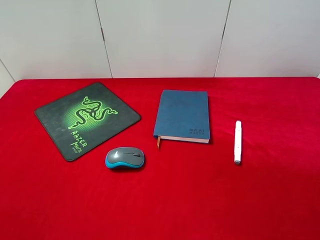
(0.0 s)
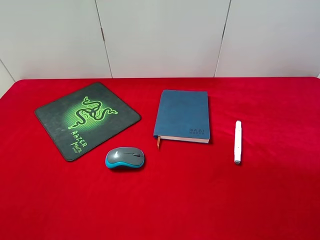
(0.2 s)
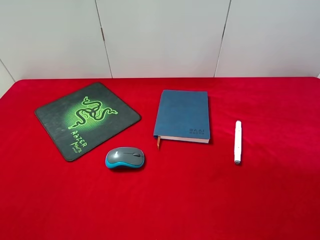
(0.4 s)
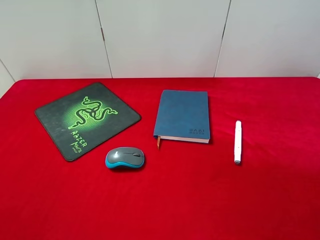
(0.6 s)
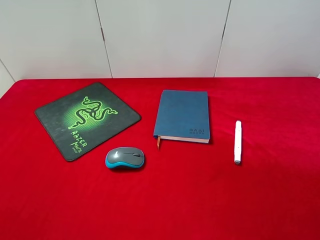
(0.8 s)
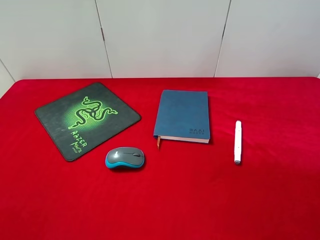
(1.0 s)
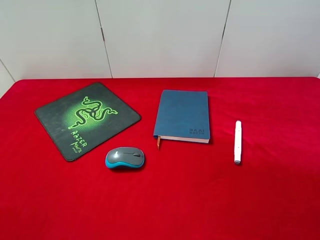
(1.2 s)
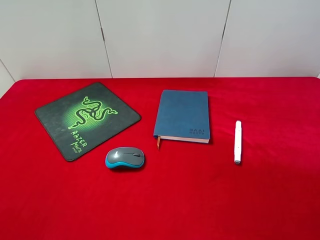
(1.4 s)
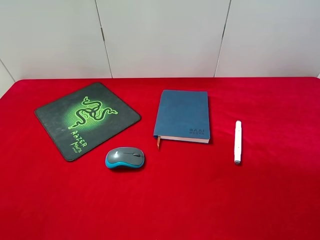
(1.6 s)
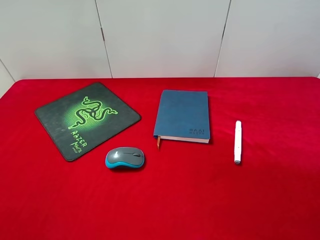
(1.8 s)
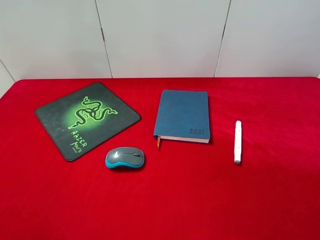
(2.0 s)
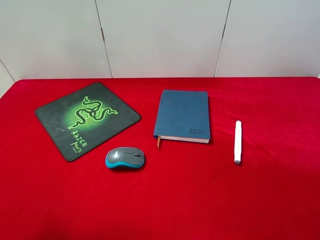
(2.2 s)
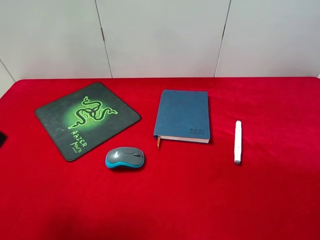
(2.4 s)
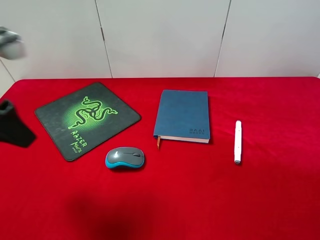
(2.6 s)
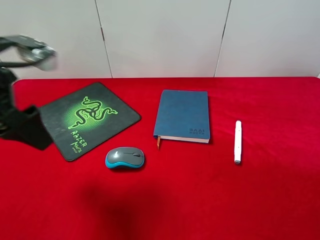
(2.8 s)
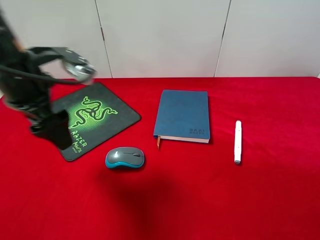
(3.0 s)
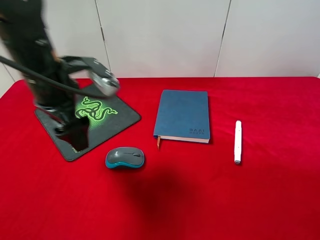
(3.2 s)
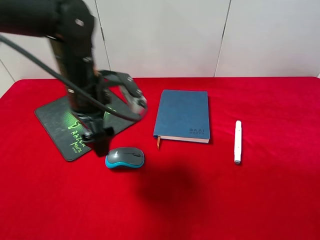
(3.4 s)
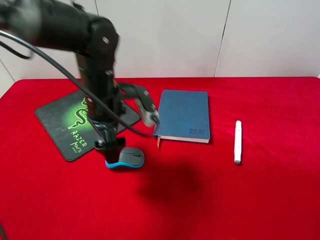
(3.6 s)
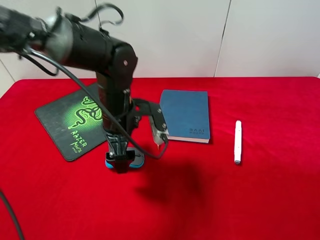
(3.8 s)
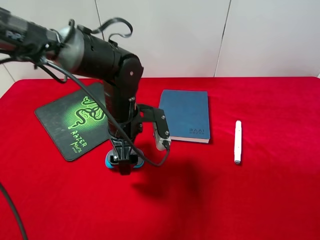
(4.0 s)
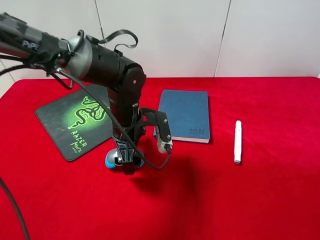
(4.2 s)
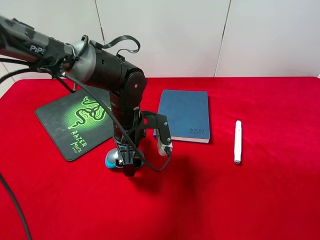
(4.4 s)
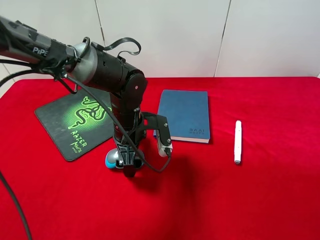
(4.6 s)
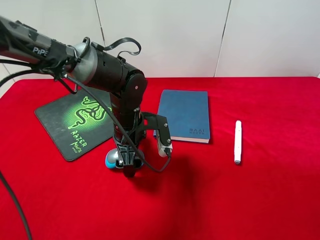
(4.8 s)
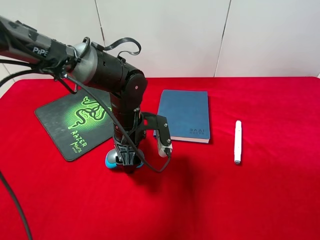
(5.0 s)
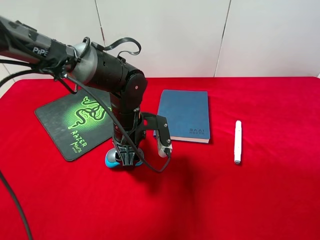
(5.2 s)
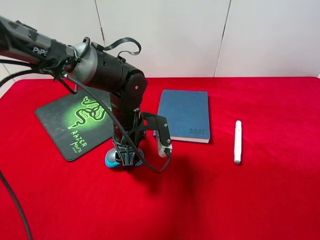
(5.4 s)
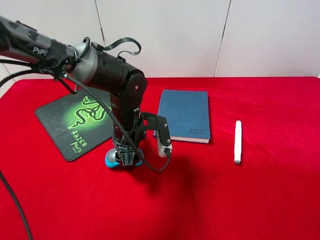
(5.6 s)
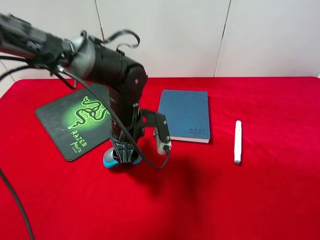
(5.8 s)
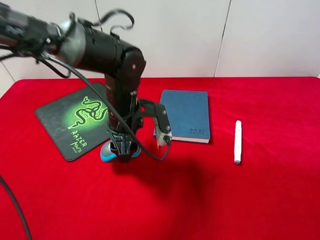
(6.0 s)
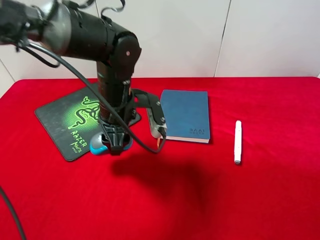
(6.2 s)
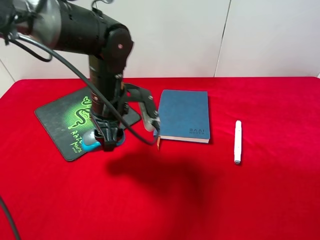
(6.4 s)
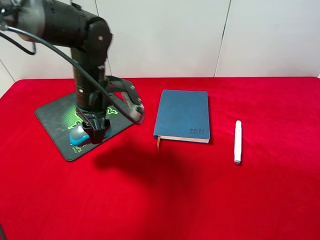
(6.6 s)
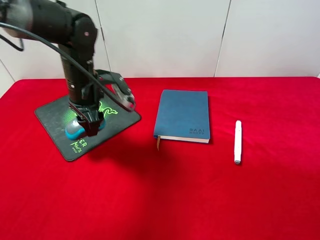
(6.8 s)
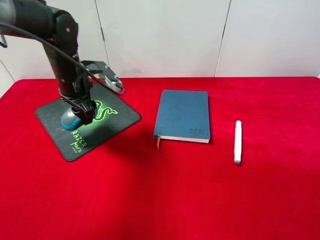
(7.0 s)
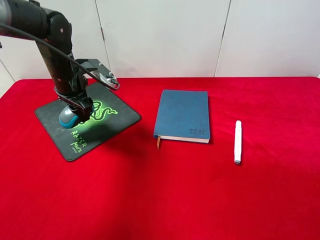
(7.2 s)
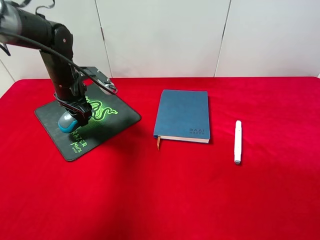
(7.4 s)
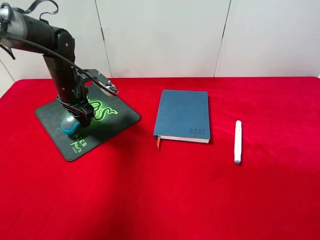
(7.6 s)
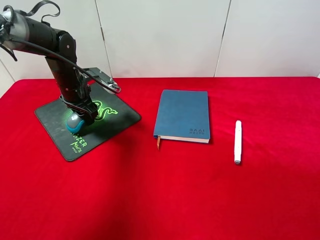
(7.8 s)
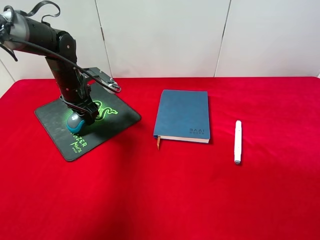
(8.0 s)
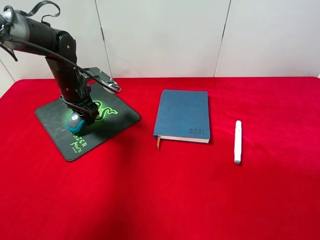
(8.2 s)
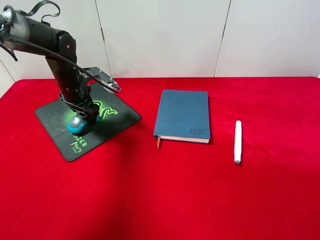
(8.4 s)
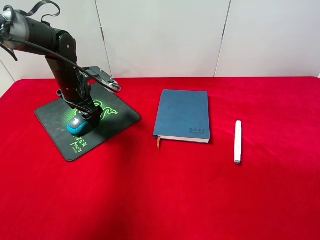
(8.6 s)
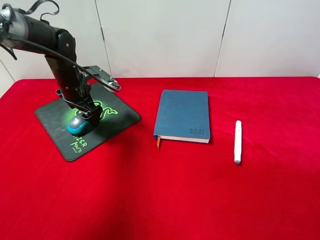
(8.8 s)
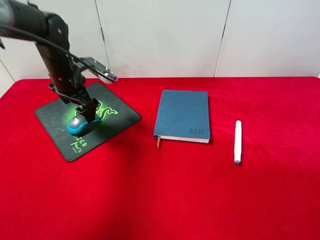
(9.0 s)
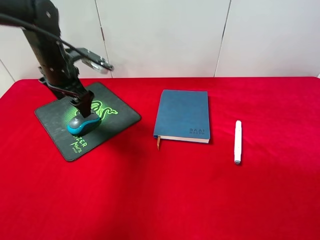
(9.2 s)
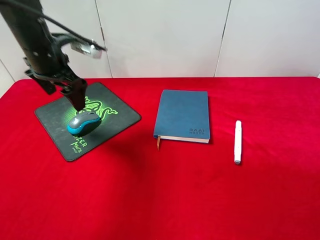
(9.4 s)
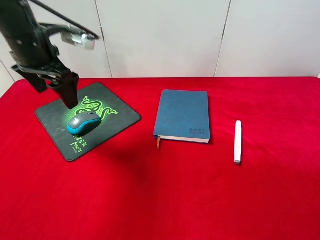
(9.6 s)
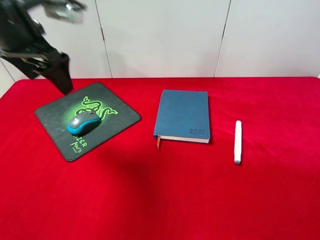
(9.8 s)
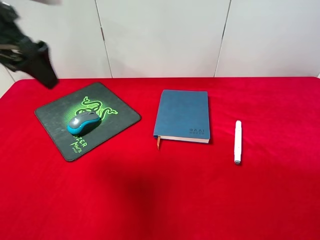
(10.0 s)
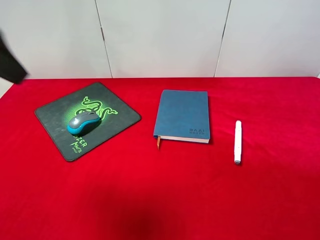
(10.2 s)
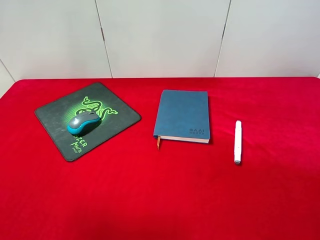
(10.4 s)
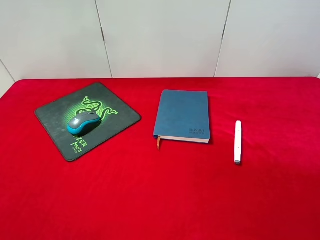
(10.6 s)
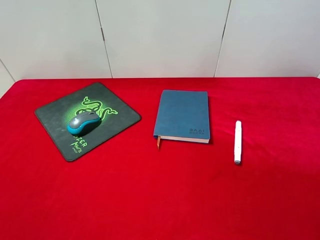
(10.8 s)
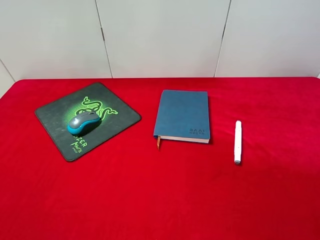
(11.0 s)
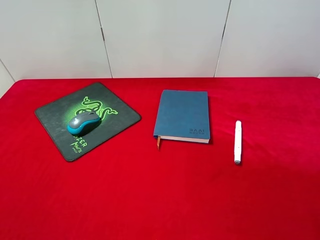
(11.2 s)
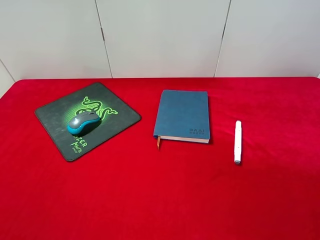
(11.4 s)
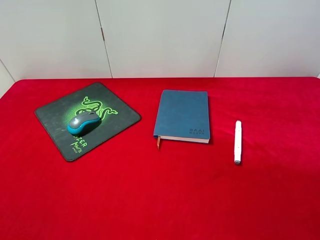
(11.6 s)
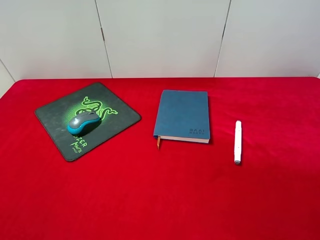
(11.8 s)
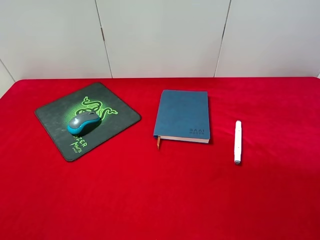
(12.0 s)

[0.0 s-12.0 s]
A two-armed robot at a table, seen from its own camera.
Step, 0.0 to 6.0 s: Pick up the mouse with left gripper.
Step, 6.2 to 8.8 s: Place the mouse on the mouse pad with left gripper.
1.6 to 3.0 s: The left gripper moves forward and to the right, some 25 cm.
3.0 to 4.4 s: The left gripper travels downward and to the right by some 20 cm.
4.4 to 6.0 s: The left gripper closes up.
6.0 to 7.6 s: The left gripper shifts about 20 cm to the left and forward.
7.6 to 9.0 s: The left gripper opens up.
9.0 to 10.4 s: The left gripper heads backward and upward, covering some 35 cm.
10.4 to 12.0 s: The left gripper heads downward and backward, covering some 20 cm.

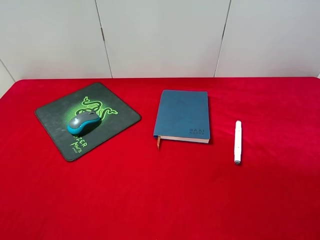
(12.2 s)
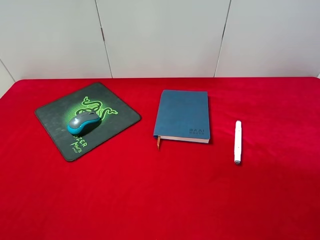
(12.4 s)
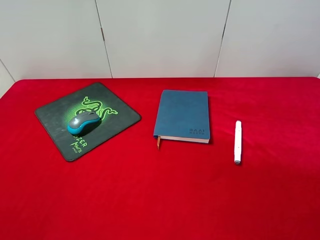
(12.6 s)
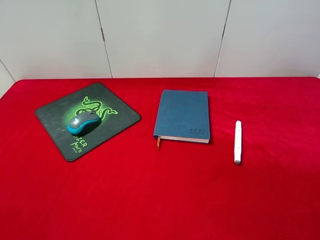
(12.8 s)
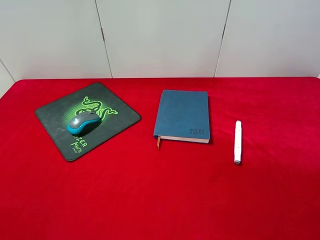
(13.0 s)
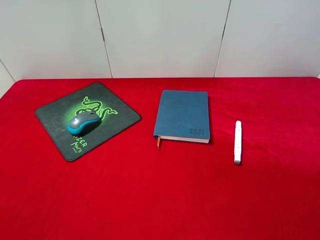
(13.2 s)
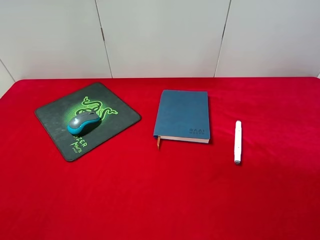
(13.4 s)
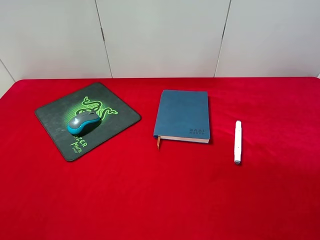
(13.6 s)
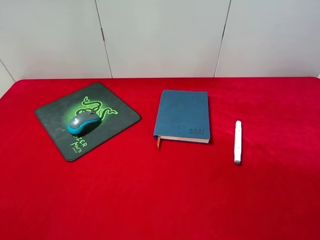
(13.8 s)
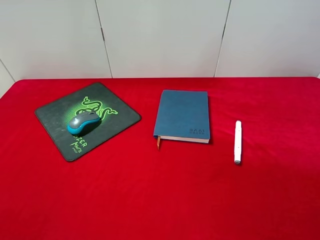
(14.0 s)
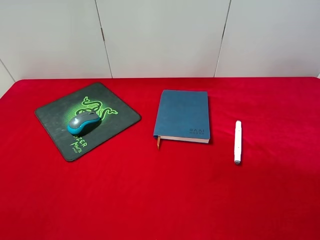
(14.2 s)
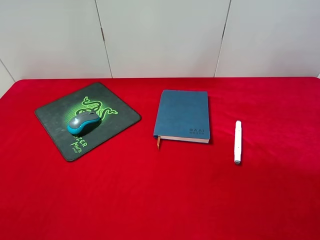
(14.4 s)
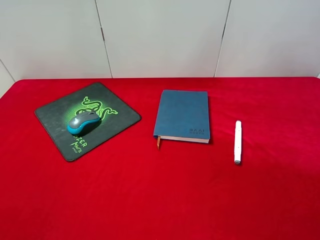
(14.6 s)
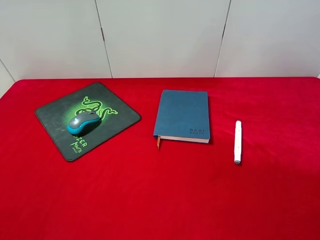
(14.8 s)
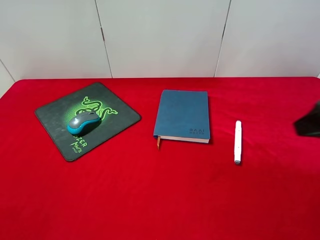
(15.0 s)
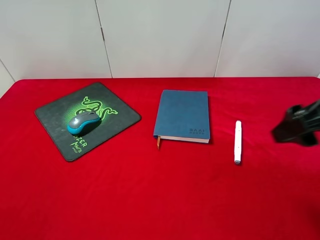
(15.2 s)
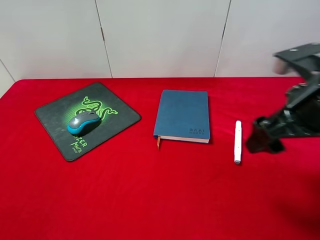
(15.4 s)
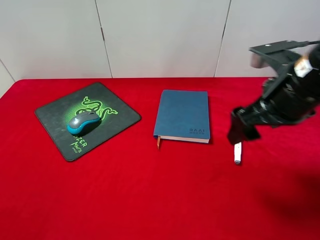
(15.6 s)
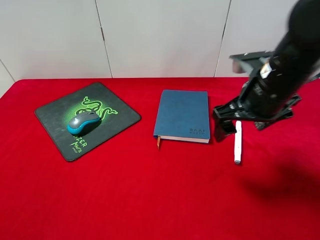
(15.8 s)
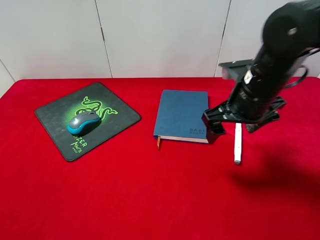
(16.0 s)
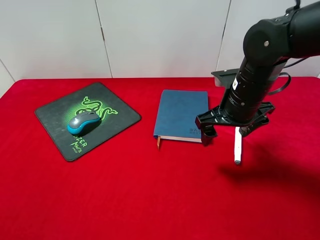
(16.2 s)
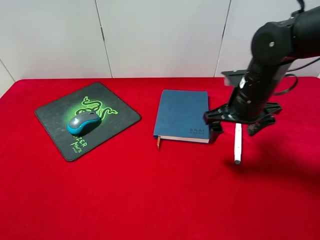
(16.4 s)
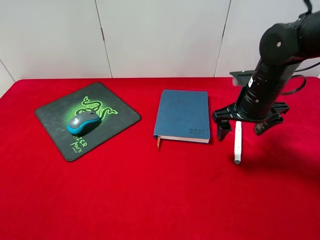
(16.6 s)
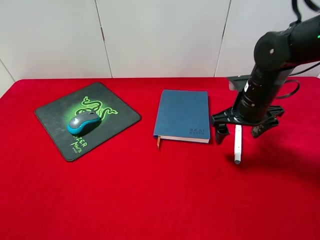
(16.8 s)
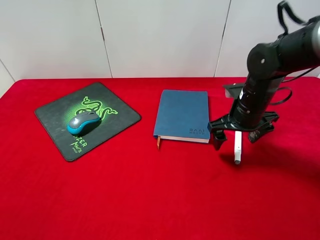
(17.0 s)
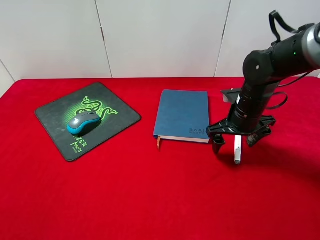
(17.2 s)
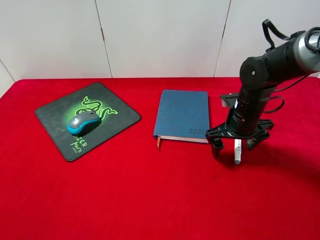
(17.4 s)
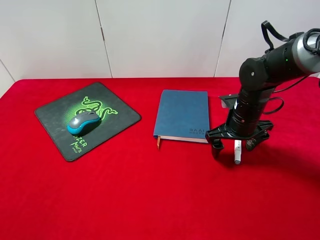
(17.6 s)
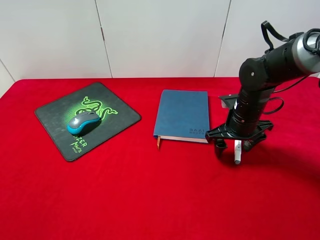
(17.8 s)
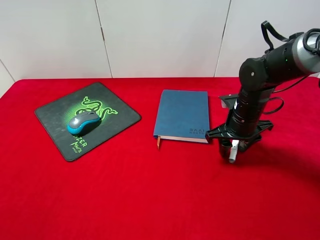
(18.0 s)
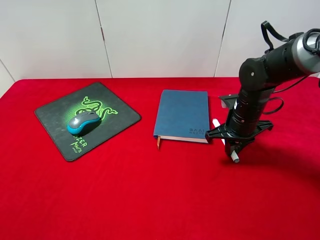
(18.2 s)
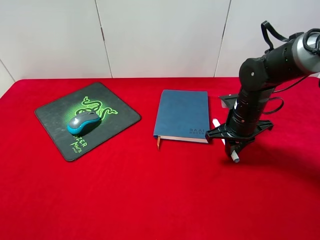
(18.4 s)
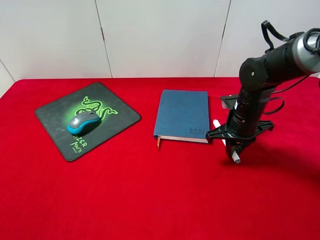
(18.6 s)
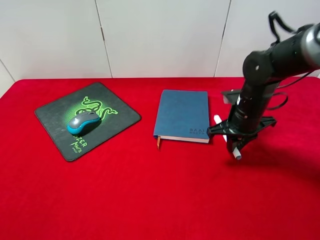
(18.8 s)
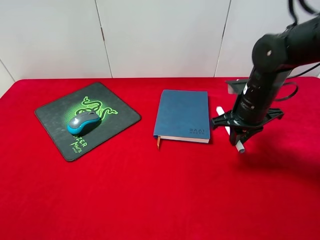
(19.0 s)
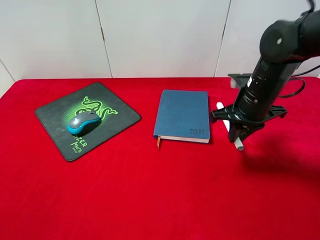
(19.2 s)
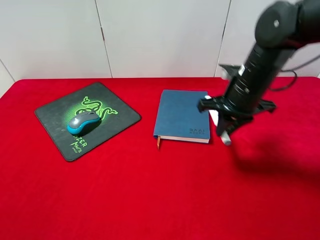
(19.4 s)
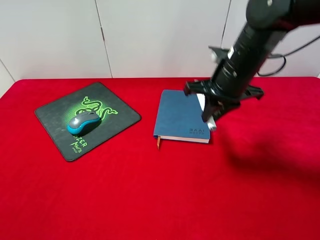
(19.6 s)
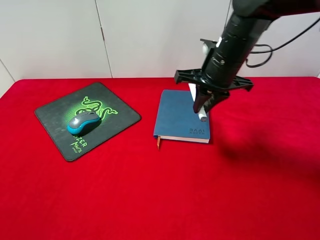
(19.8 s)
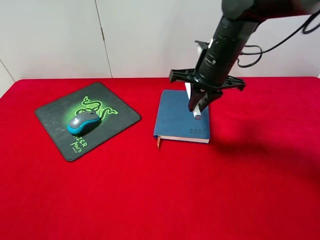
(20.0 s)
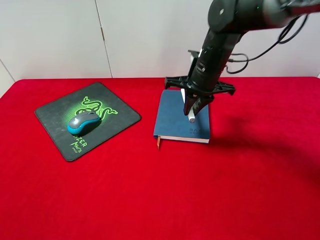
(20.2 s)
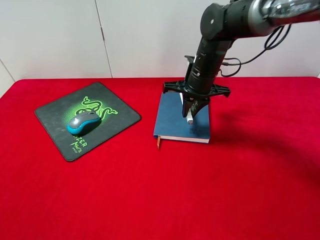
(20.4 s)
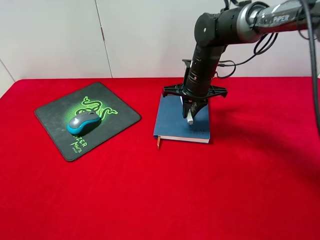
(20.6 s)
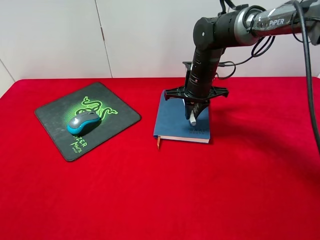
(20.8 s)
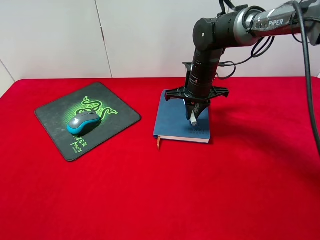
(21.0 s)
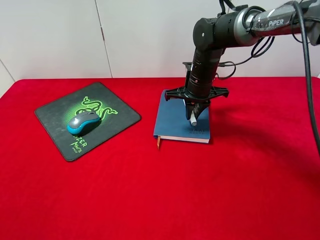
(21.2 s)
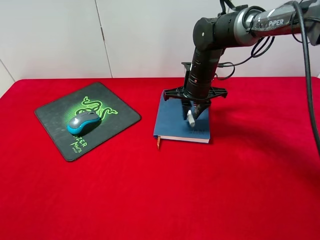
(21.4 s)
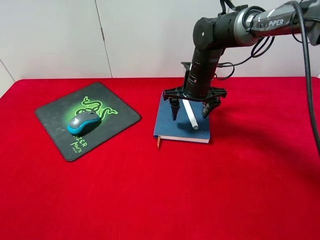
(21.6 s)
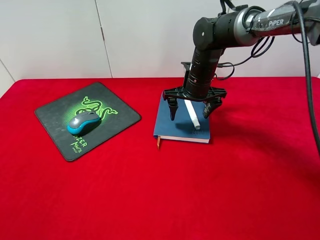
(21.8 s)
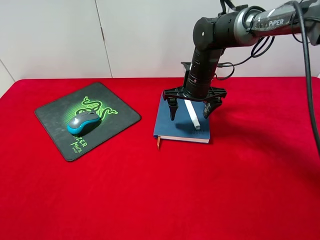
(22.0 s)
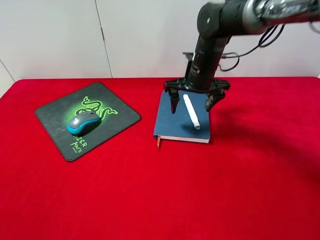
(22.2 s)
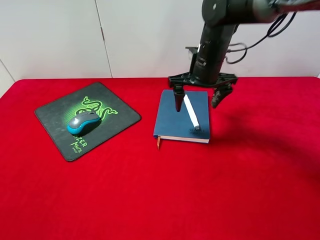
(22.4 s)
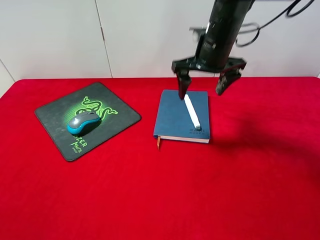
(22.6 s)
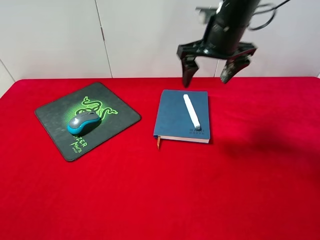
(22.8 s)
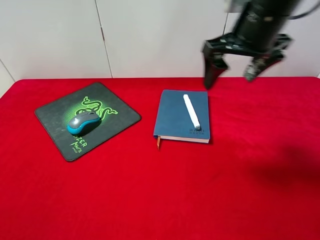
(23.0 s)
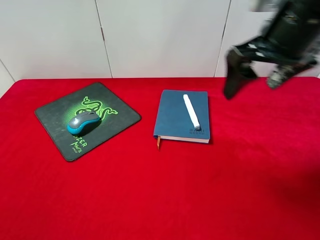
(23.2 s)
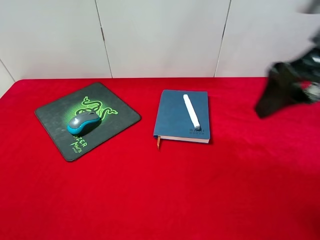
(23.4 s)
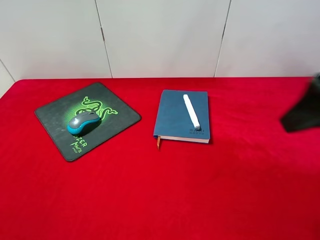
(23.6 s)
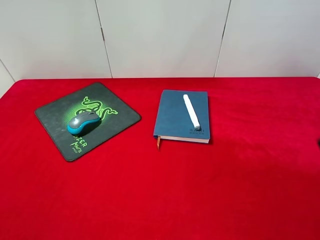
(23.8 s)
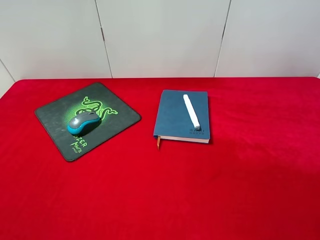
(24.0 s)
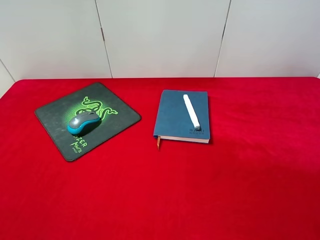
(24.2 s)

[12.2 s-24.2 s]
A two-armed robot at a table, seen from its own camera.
Step, 12.2 to 18.8 s: Pick up the marker pen with right gripper.
Step, 19.0 to 21.6 s: Place the marker pen on the notebook with right gripper.
12.2 to 13.8 s: Both grippers stay about where they are.
13.8 to 15.2 s: The right gripper travels forward by approximately 15 cm.
15.2 to 16.6 s: The right gripper is displaced forward and downward by roughly 15 cm.
16.6 to 18.2 s: The right gripper is displaced downward by about 5 cm, and closes its fingers.
18.2 to 19.8 s: The right gripper shifts roughly 15 cm upward and to the left.
19.8 to 21.2 s: The right gripper goes approximately 10 cm downward and forward.
21.2 to 22.6 s: The right gripper is displaced upward by about 10 cm, and opens its fingers.
22.6 to 24.2 s: The right gripper moves backward and to the right, some 40 cm.
